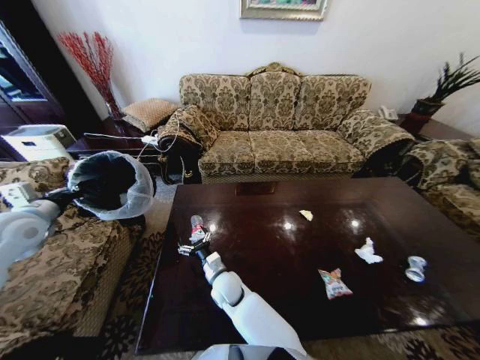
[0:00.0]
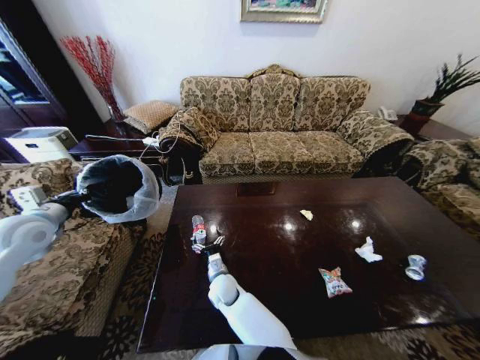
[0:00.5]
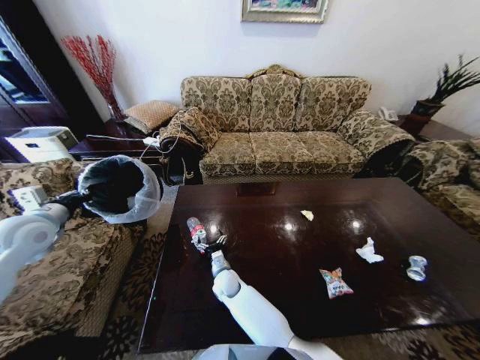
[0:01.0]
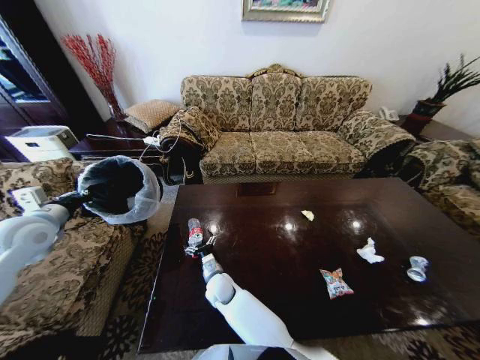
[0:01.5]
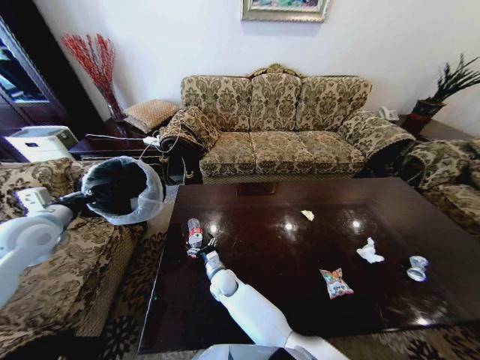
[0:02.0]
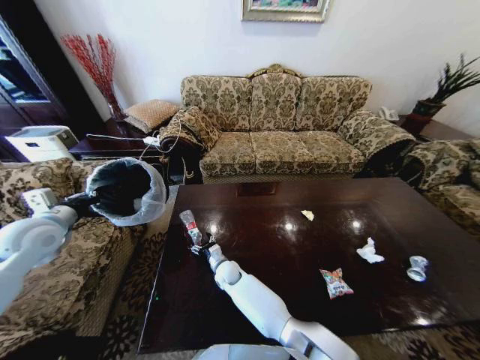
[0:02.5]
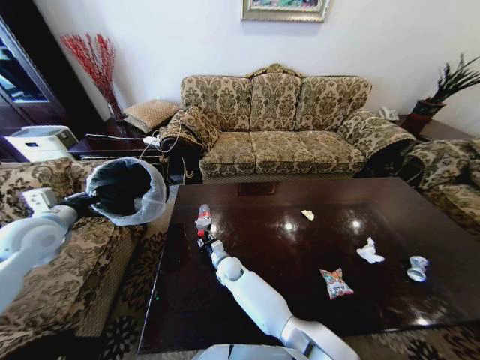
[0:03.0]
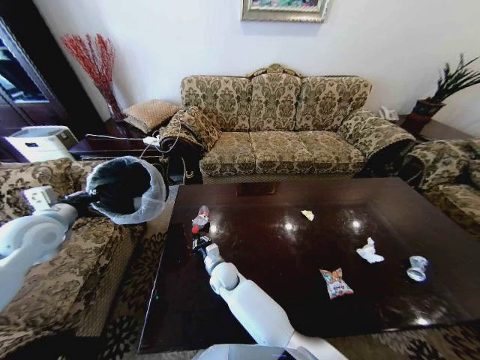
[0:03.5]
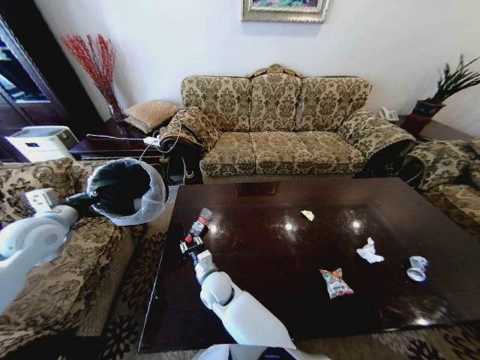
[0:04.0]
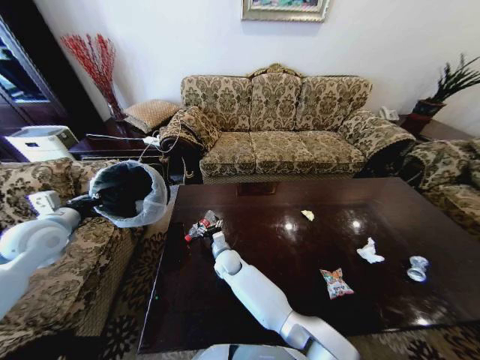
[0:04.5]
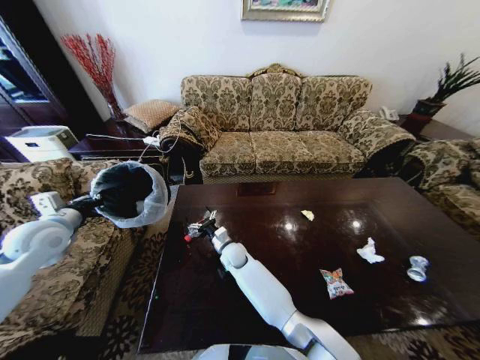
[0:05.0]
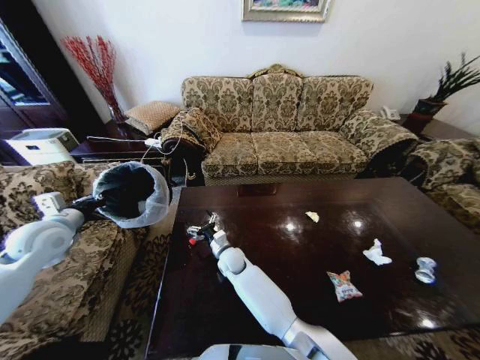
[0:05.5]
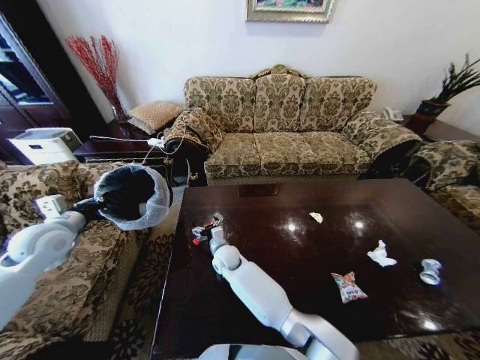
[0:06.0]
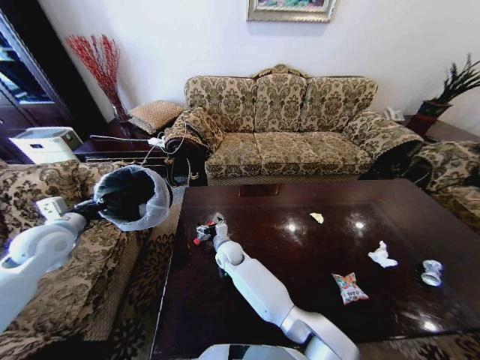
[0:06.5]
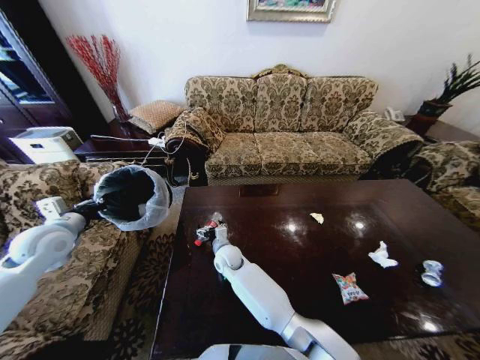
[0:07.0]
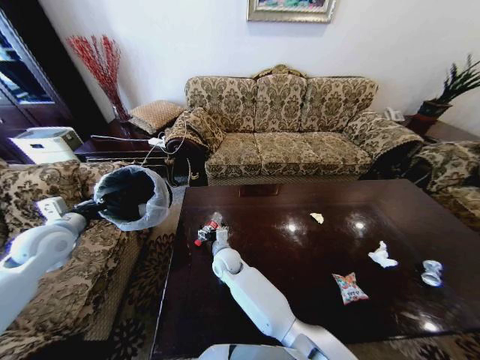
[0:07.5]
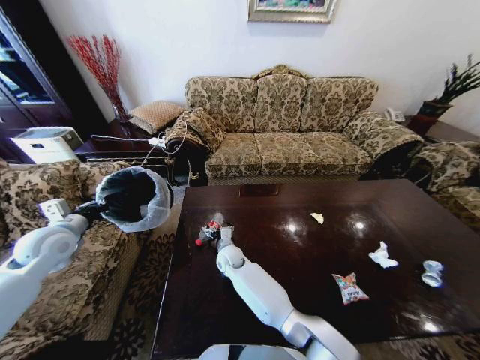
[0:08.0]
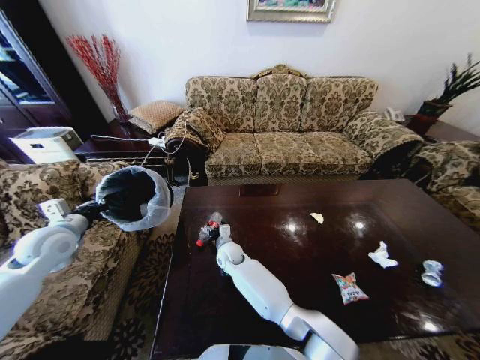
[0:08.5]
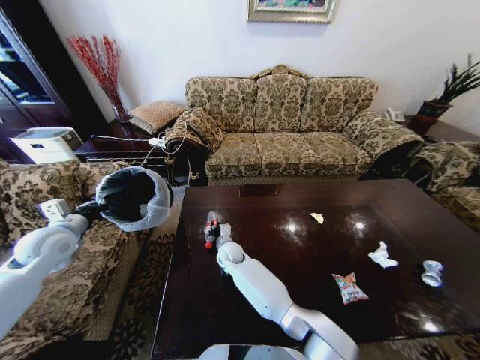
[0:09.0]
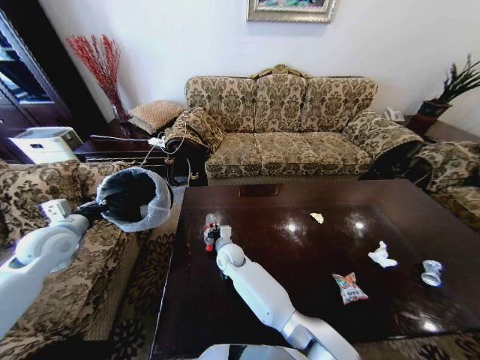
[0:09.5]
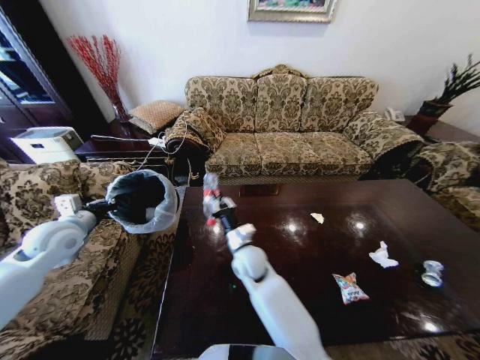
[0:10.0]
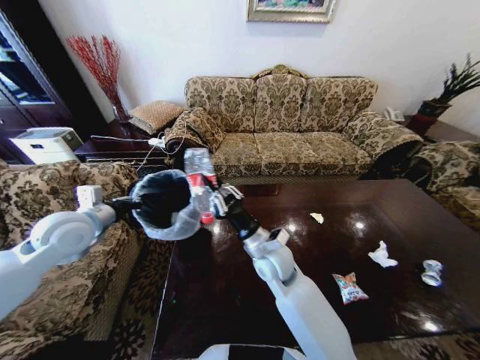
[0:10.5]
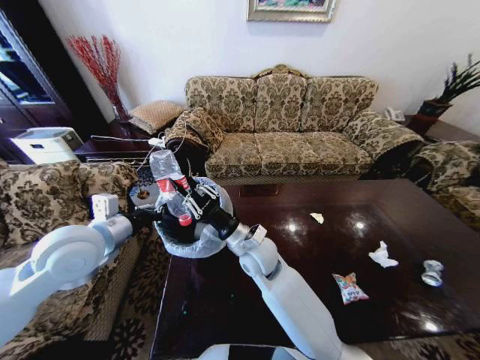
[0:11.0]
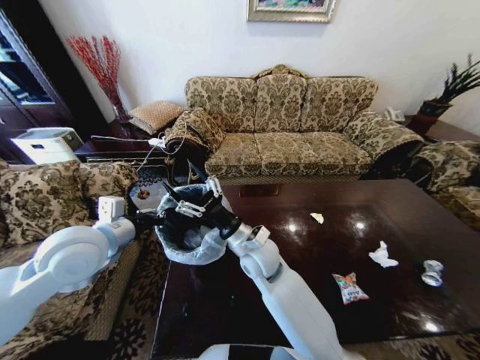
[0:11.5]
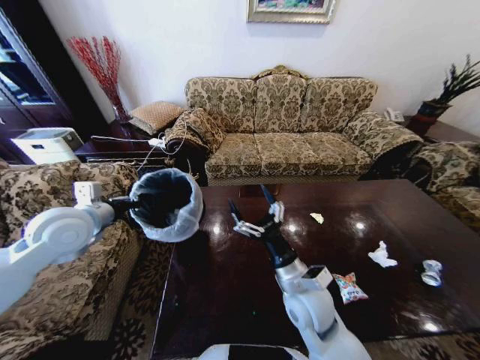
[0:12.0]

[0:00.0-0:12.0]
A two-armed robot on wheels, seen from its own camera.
Task of the whole recording: Move to the front of the table and place the trash on the table into the trash bin.
0:00.0 to 0:02.0: The right gripper shifts approximately 5 cm downward.
0:02.0 to 0:04.0: The right gripper moves upward, roughly 5 cm, and closes its fingers.
0:04.0 to 0:06.0: The right gripper moves forward, approximately 10 cm, and opens.
0:06.0 to 0:08.0: The grippers make only small movements.
0:08.0 to 0:10.0: The right gripper heads upward, to the right and backward, covering some 10 cm, and closes.
0:10.0 to 0:12.0: The right gripper goes left and right, some 15 cm each way, reversing 2 times, and opens its fingers; the left gripper travels to the right and upward by approximately 10 cm.

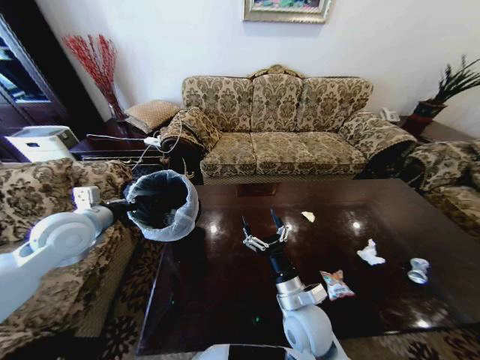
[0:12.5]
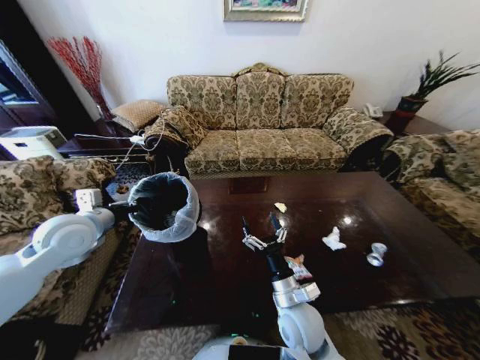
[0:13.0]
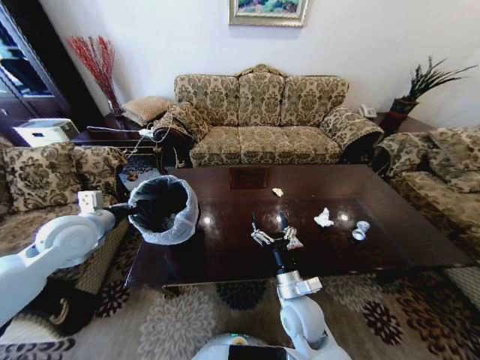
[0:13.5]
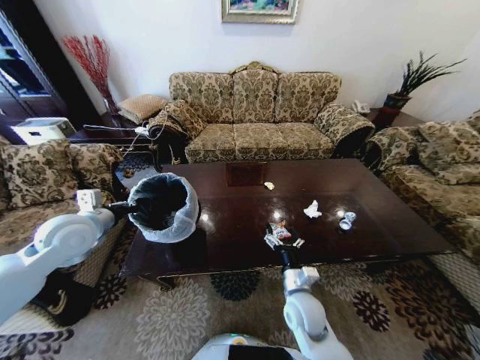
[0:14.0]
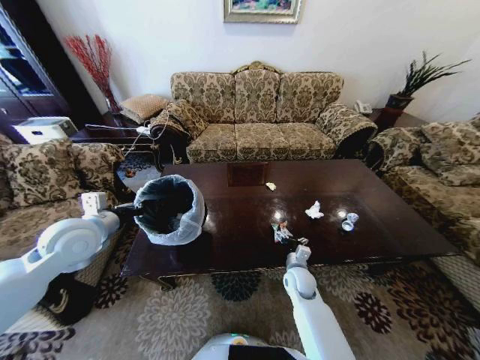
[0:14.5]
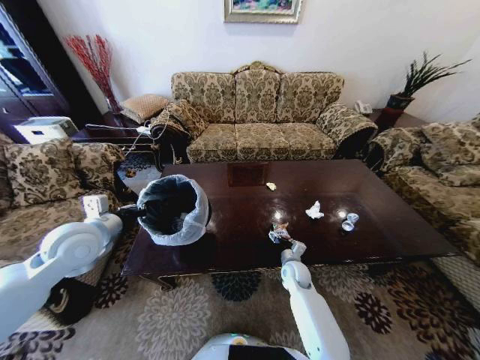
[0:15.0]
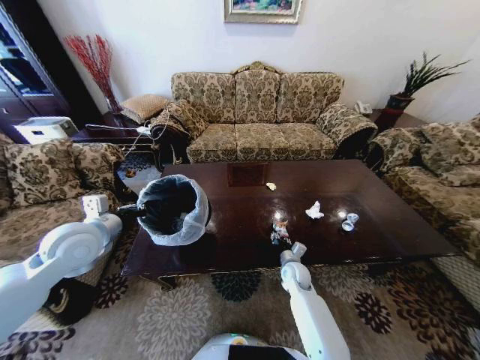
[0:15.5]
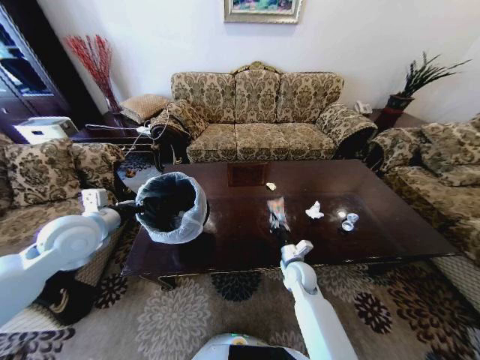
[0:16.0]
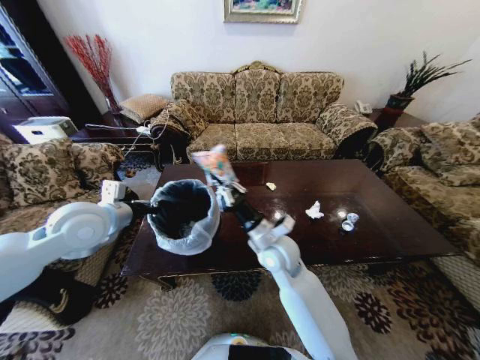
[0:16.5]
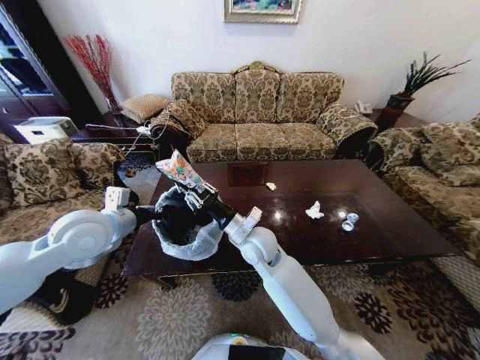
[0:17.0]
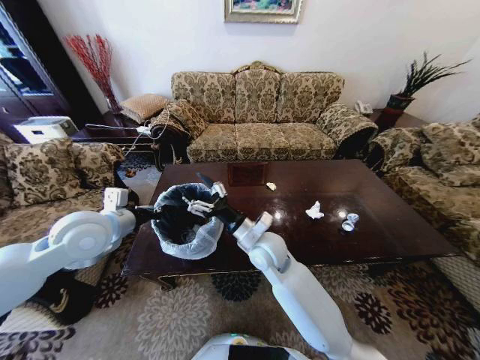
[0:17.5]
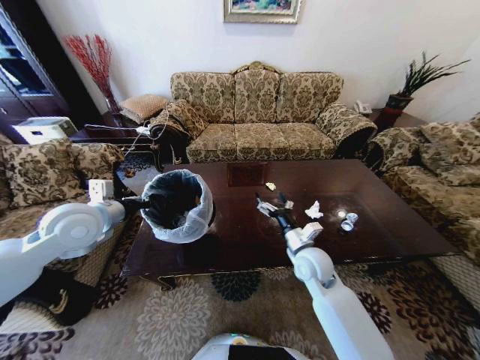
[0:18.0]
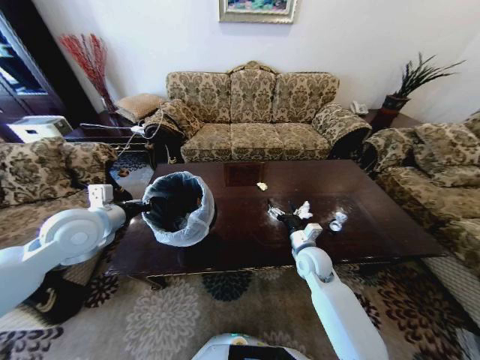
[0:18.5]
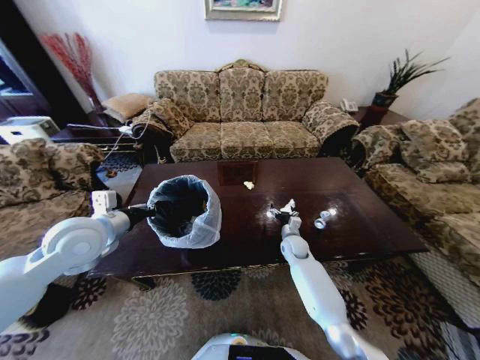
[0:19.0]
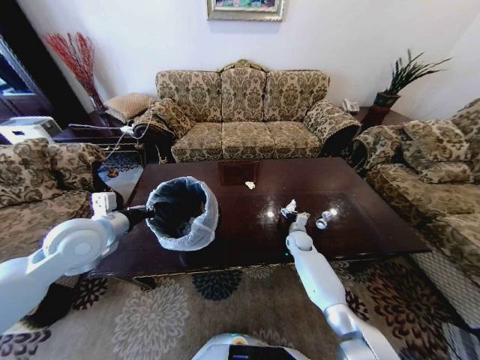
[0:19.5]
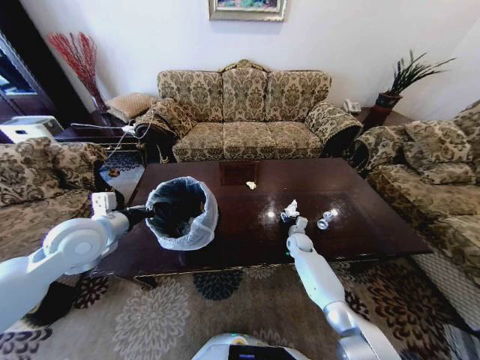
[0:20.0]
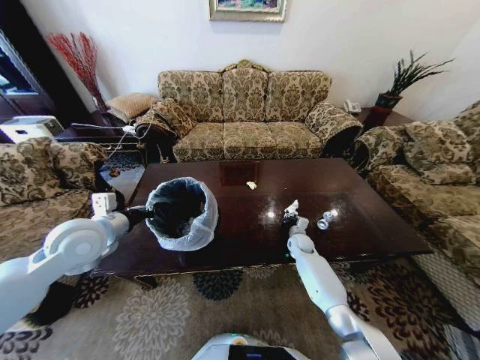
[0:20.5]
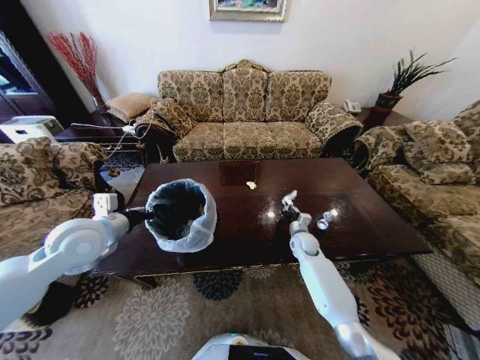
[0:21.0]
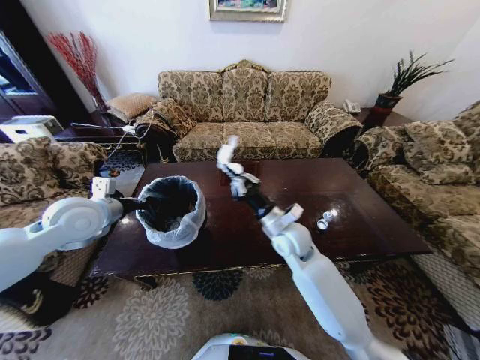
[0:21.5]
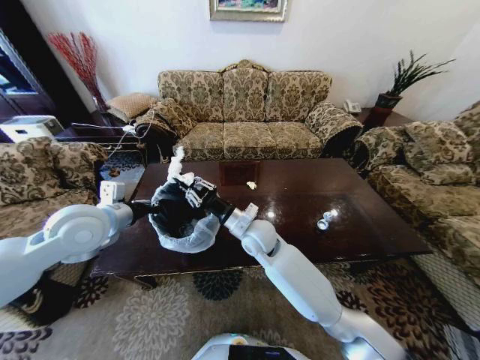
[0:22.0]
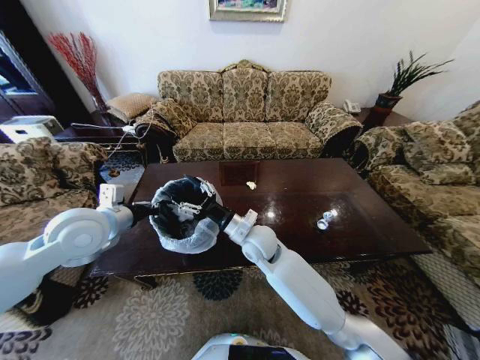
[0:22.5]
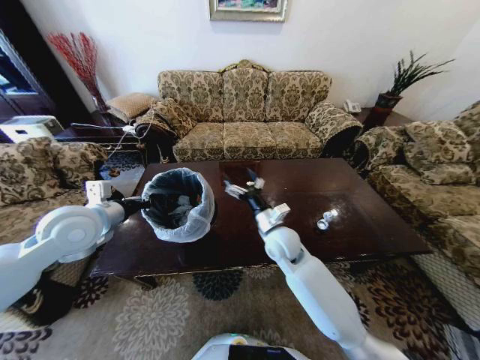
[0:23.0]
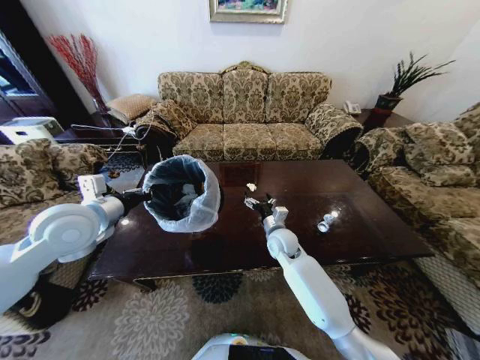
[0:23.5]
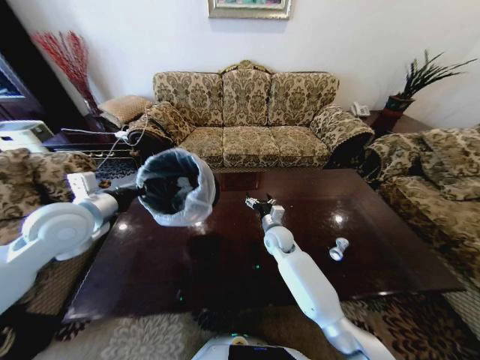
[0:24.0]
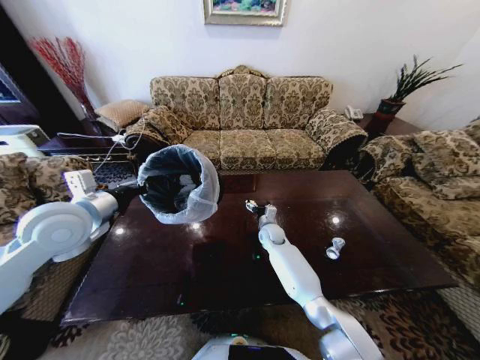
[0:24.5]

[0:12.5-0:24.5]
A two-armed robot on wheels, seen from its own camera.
Task of the whole recording: Move to the front of the table and place the trash on the table into the trash bin.
0:12.5 to 0:14.5: The right gripper is displaced forward and downward by roughly 20 cm.
0:14.5 to 0:16.5: The right gripper shifts roughly 20 cm upward and to the left, and closes up, while the left gripper shifts by approximately 5 cm.
0:16.5 to 0:18.5: The right gripper moves to the right and downward, roughly 15 cm, and opens its fingers.
0:18.5 to 0:20.5: The right gripper moves forward and downward, roughly 20 cm, and closes.
0:20.5 to 0:22.5: The right gripper moves upward, to the left and backward, about 35 cm.
0:22.5 to 0:24.5: The right gripper goes about 25 cm downward, forward and to the right.

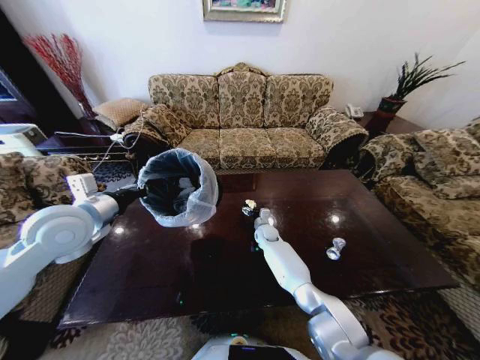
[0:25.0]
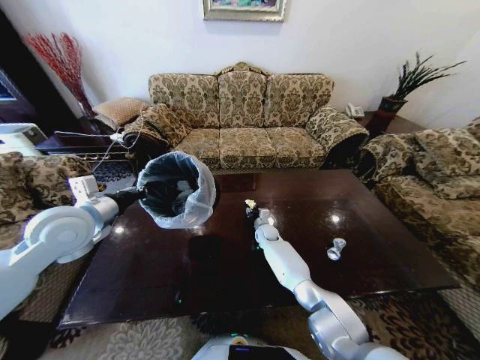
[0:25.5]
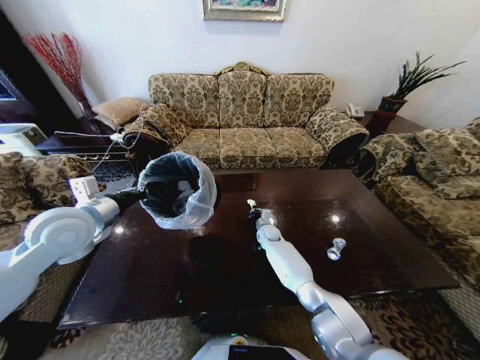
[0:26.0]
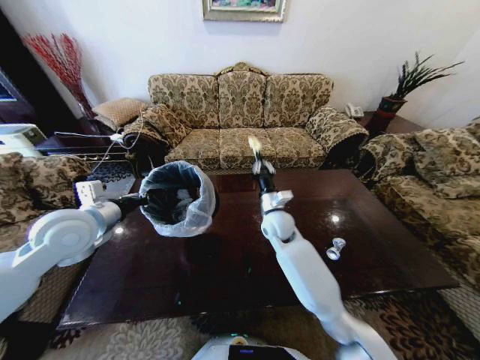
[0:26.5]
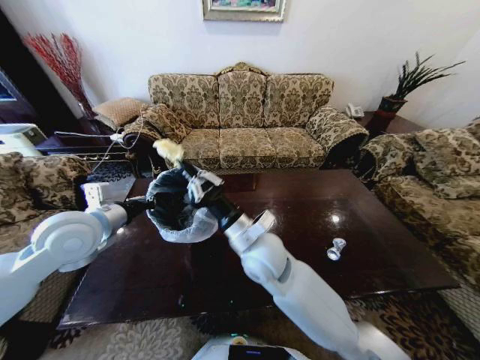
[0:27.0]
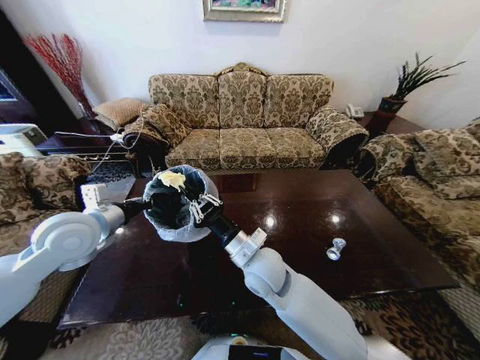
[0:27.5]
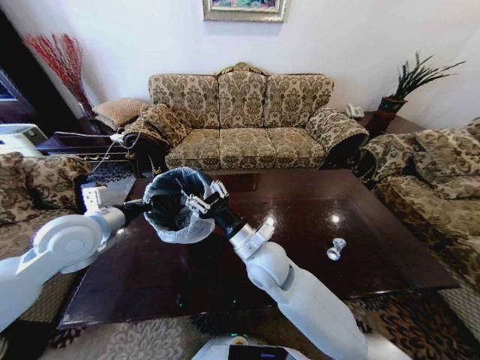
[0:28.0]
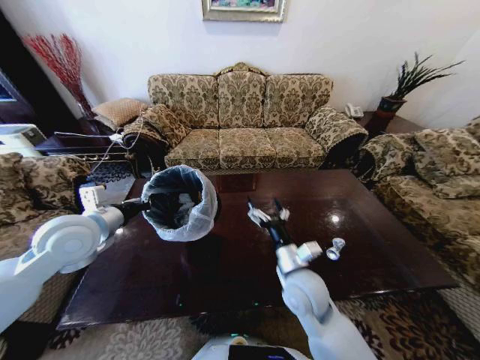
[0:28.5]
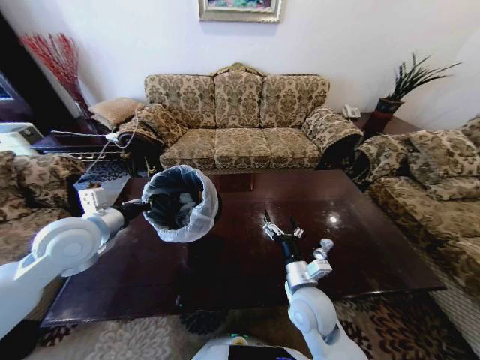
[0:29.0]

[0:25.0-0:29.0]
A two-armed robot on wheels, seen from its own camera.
Task of the whole recording: Move to the front of the table and place the trash on the table into the trash bin.
0:25.0 to 0:27.0: The right gripper heads upward and backward, covering about 35 cm, and closes up.
0:27.0 to 0:29.0: The right gripper is displaced to the right, downward and backward by about 20 cm, and opens.
